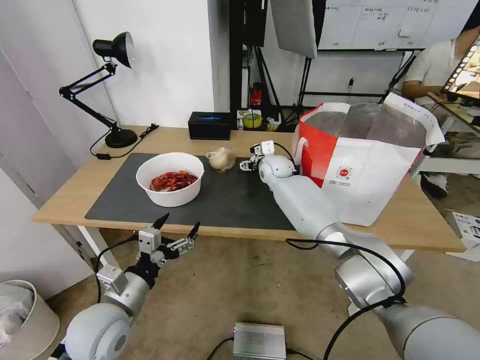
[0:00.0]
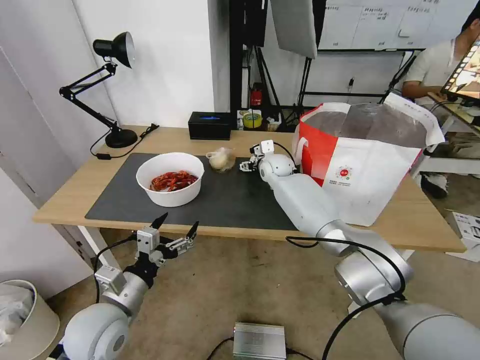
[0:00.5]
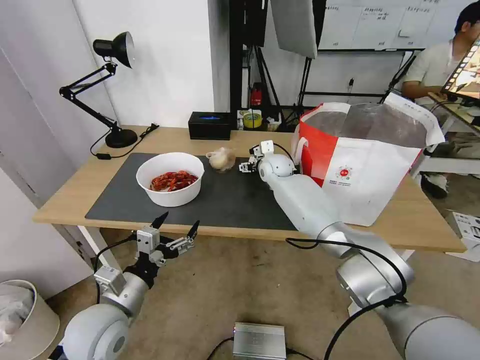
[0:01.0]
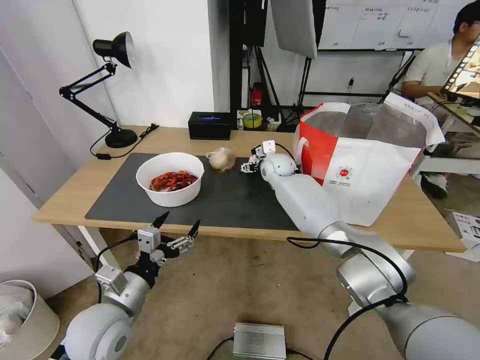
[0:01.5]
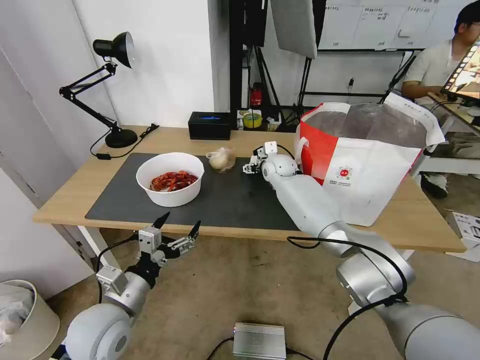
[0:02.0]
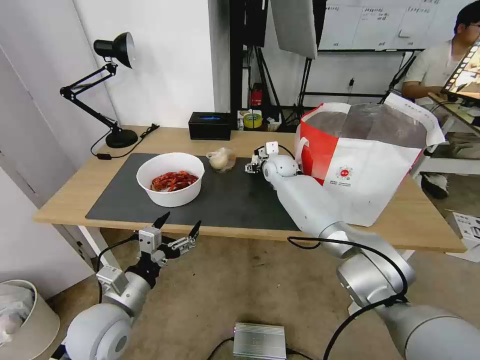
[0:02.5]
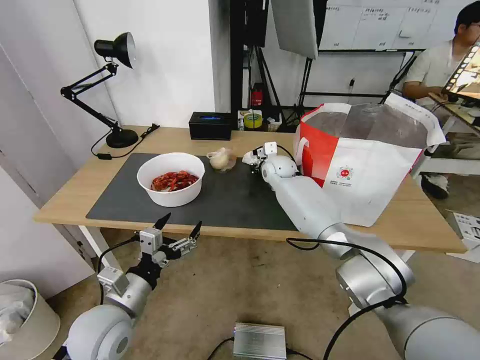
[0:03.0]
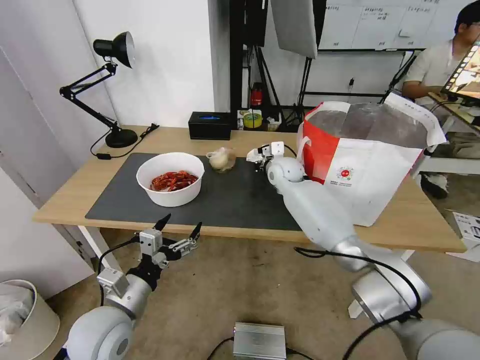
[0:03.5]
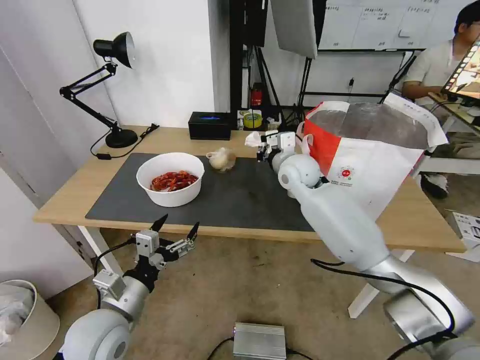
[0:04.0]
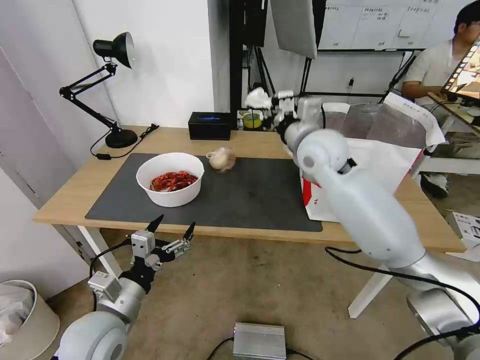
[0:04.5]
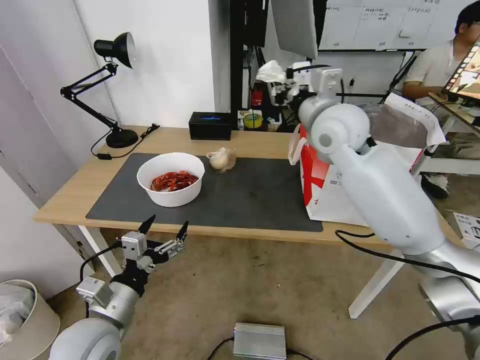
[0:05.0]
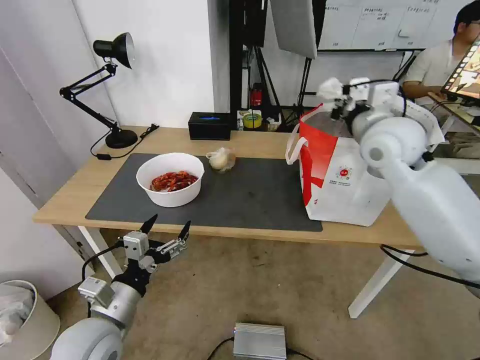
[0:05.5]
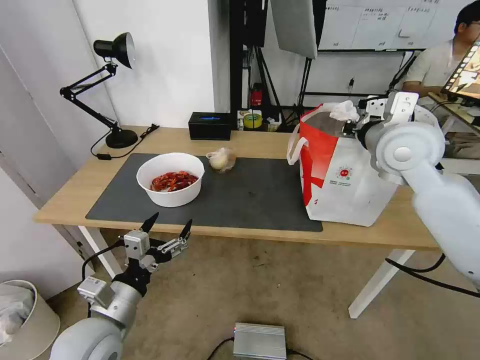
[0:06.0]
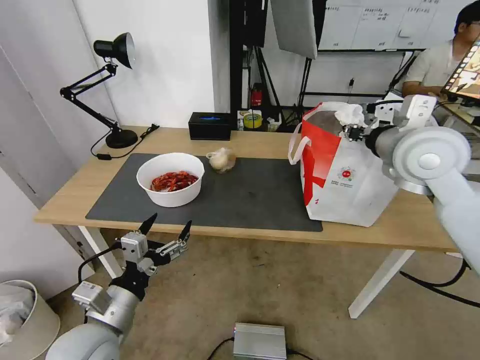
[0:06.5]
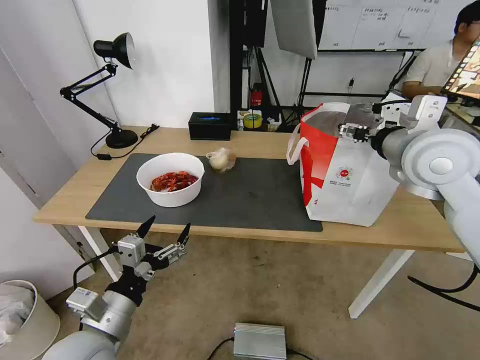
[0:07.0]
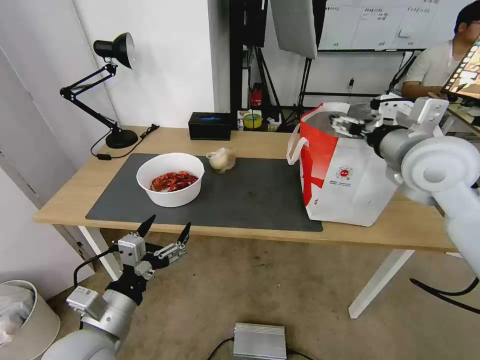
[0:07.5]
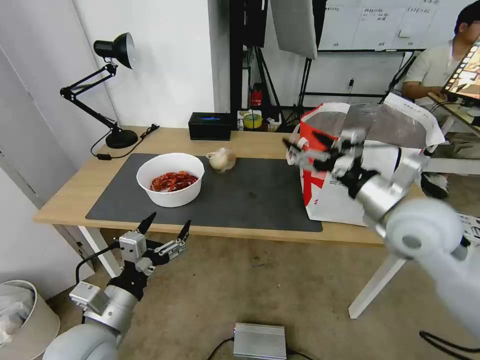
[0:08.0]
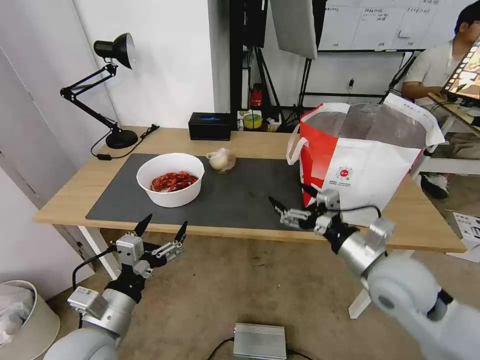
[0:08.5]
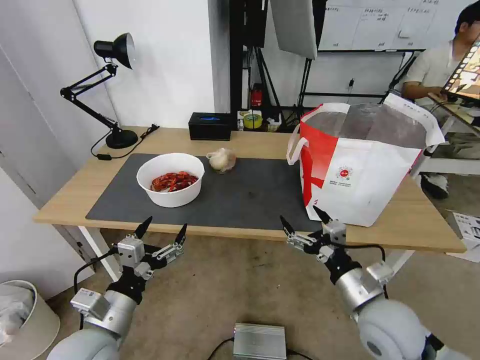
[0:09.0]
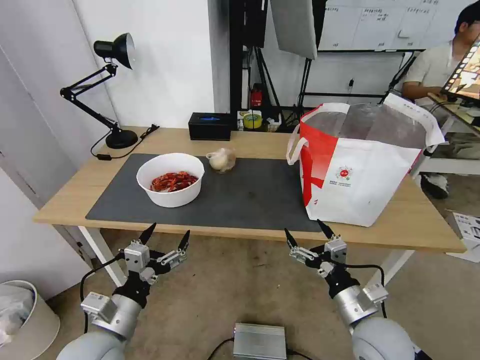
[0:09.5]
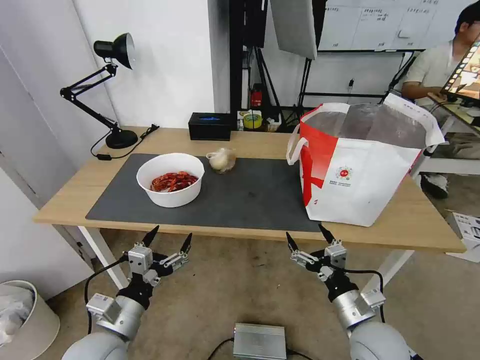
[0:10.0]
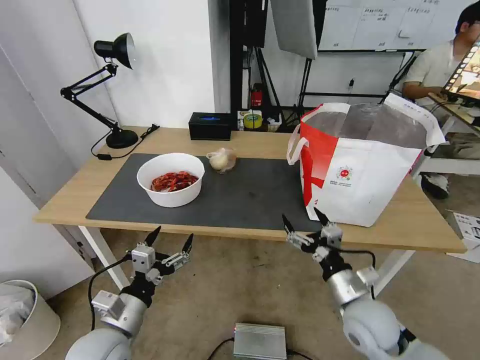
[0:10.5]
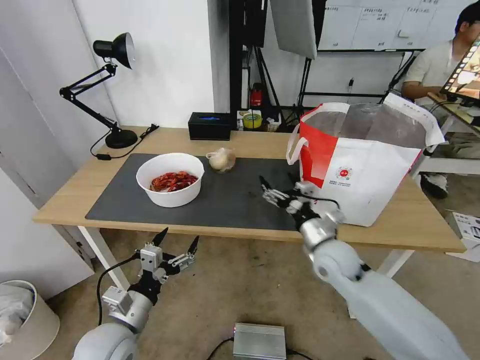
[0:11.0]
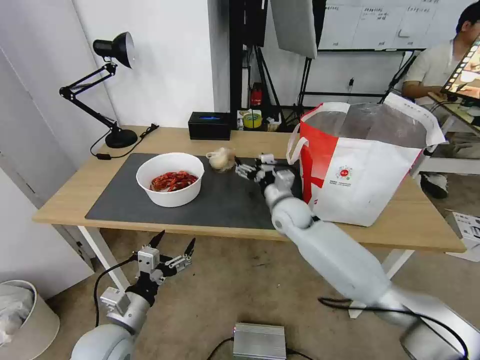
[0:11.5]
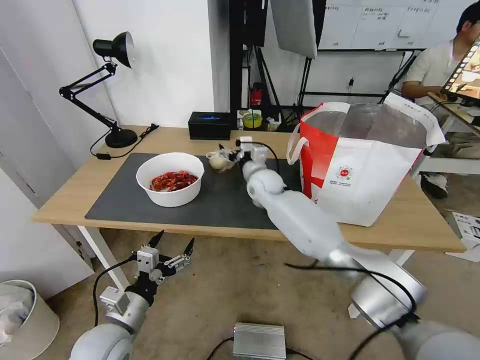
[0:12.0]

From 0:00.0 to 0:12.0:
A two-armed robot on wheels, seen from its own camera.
Task of the whole recording: Pick up the trash from the table and place it into the takeout bag.
From 0:00.0 to 0:02.0: Both grippers stay put.
From 0:02.0 to 0:04.0: The right gripper travels backward and upward by approximately 15 cm, and closes its fingers.
From 0:04.0 to 0:06.0: The right gripper shifts some 20 cm to the right, upward and backward.
From 0:06.0 to 0:08.0: The right gripper shifts approximately 15 cm backward and downward, and opens.
From 0:08.0 to 0:10.0: The right gripper is displaced downward and backward by some 25 cm.
From 0:10.0 to 0:12.0: The right gripper shifts some 40 cm forward and to the left.

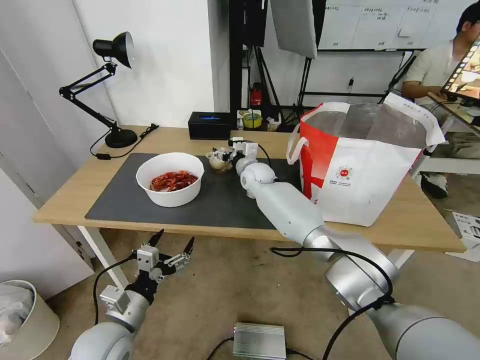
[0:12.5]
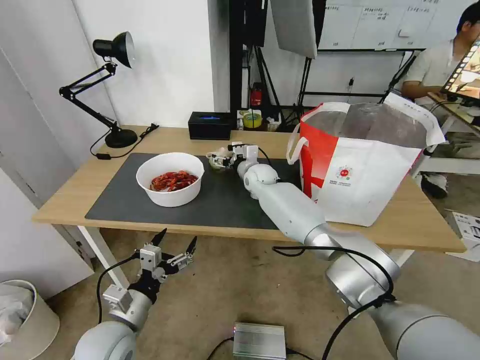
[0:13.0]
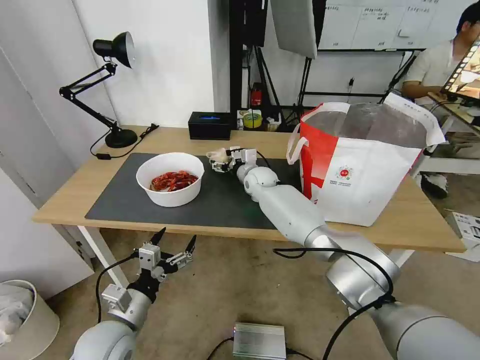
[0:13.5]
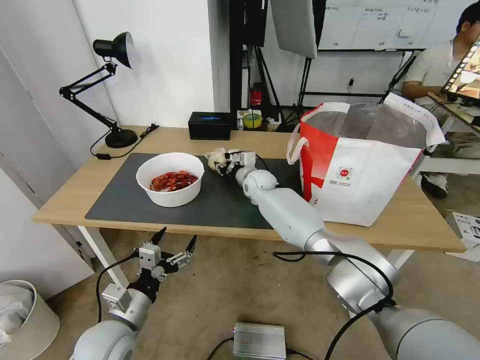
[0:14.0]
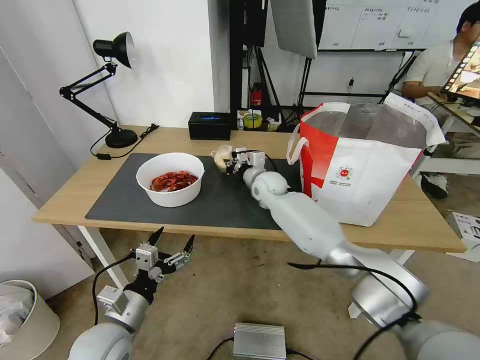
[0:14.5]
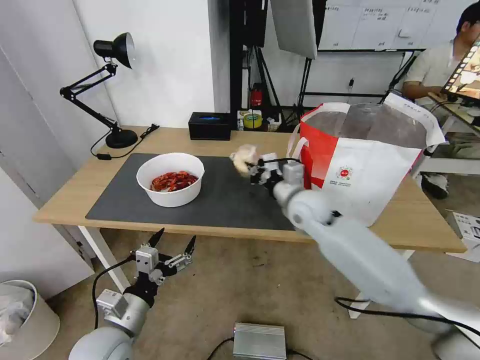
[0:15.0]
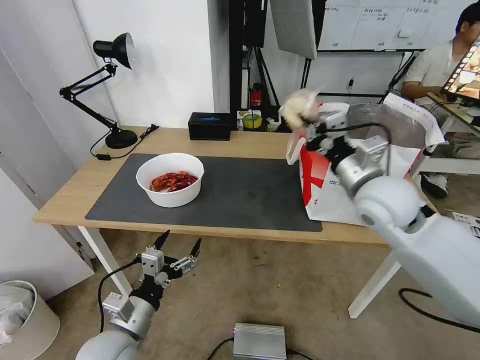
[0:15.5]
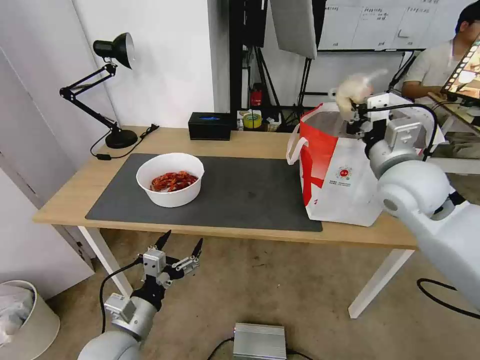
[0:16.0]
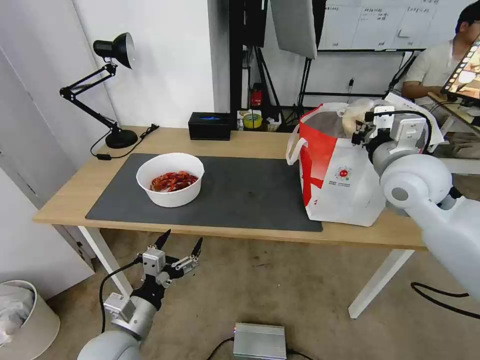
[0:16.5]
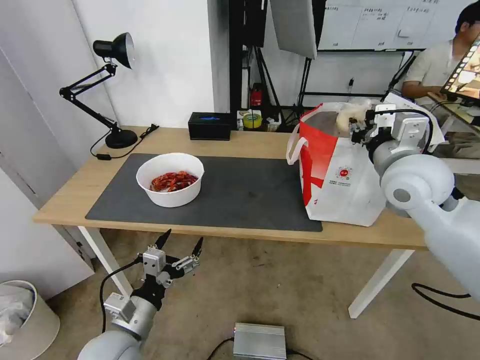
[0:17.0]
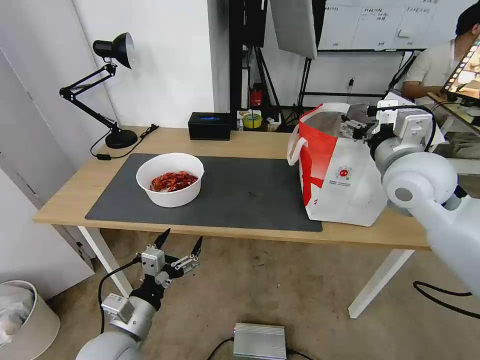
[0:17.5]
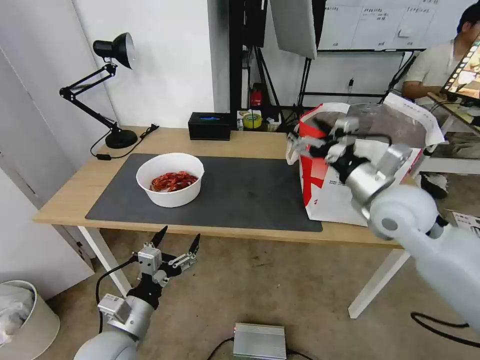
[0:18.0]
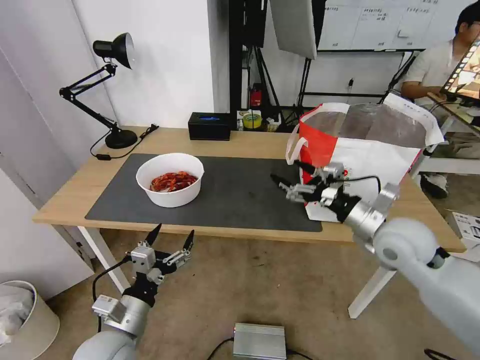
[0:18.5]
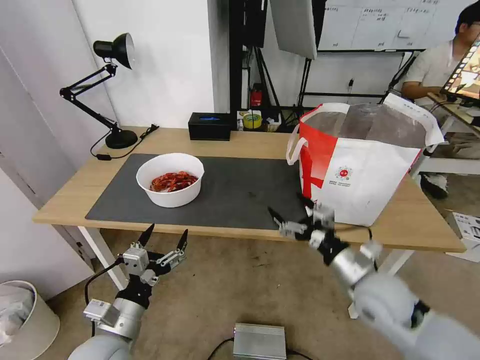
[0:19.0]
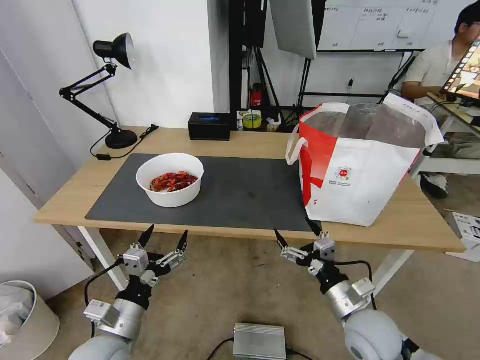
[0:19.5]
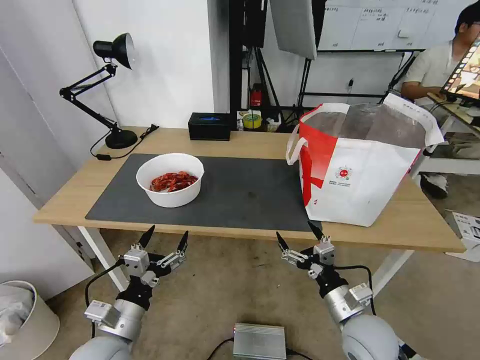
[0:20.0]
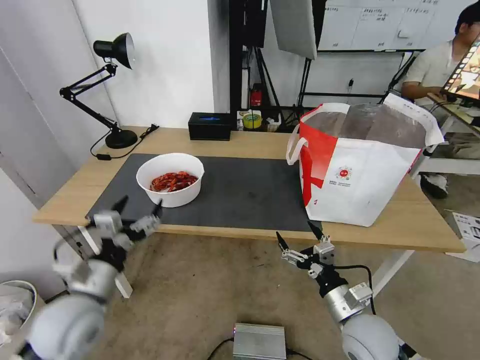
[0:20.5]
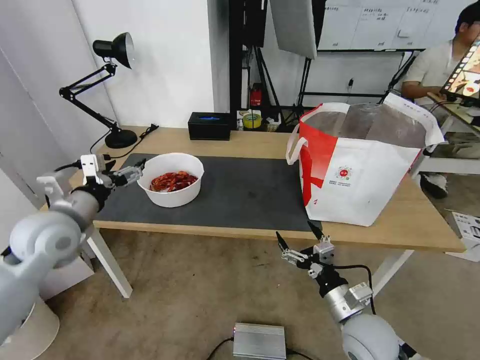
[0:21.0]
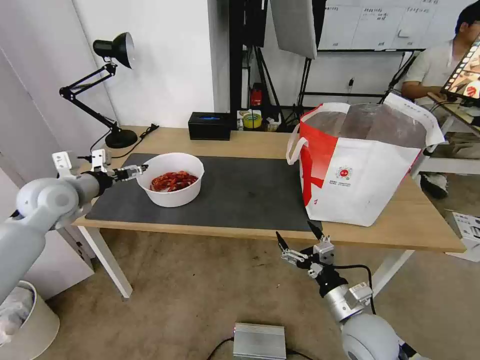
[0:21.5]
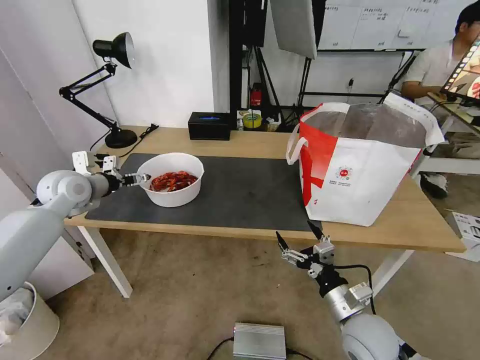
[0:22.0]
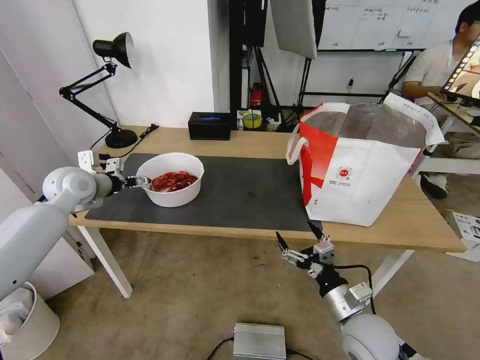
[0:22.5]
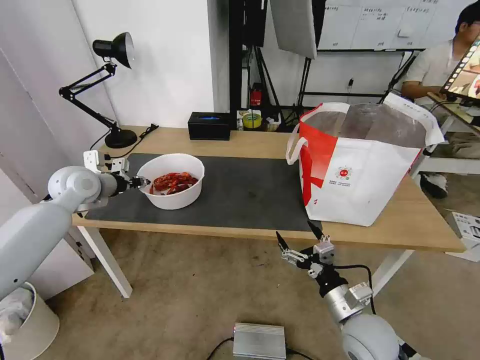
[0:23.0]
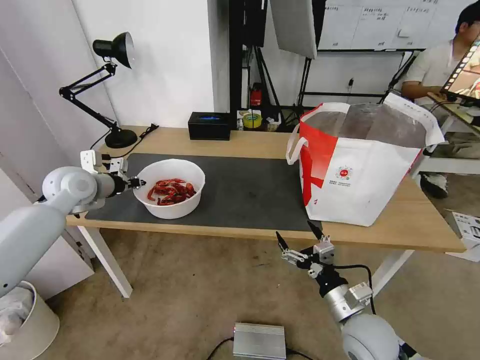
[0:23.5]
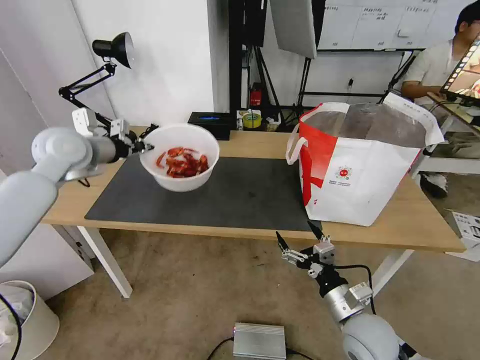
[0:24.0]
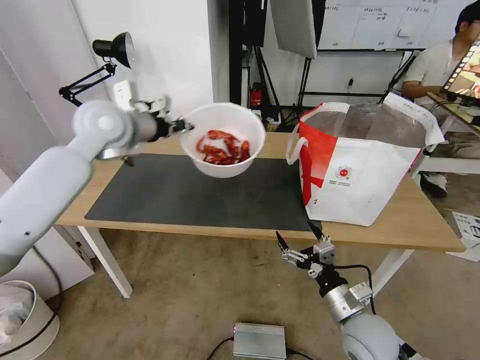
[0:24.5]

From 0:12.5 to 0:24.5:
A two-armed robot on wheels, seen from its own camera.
Task of the whole recording: Pick up the trash from the table and place it into the takeout bag.
From 0:12.5 to 0:14.5: The right gripper shifts by about 5 cm, and closes its fingers.
From 0:14.5 to 0:16.5: The right gripper moves to the right, upward and backward, approximately 35 cm.
From 0:16.5 to 0:18.5: The right gripper travels downward by roughly 10 cm, and opens its fingers.
From 0:18.5 to 0:20.5: The right gripper goes about 20 cm downward and backward. Meanwhile the left gripper is displaced upward by about 5 cm.
From 0:20.5 to 0:22.5: The left gripper travels forward by approximately 25 cm.
From 0:22.5 to 0:24.5: The left gripper travels upward and to the right by roughly 20 cm, and closes.

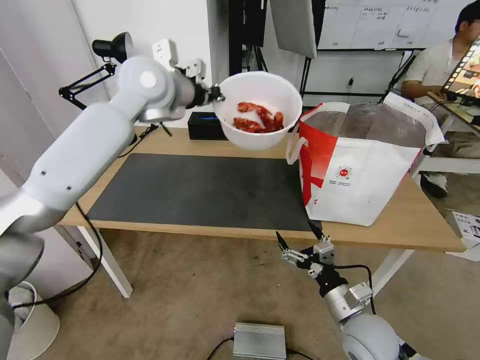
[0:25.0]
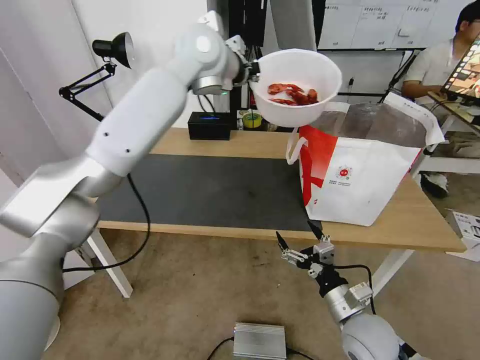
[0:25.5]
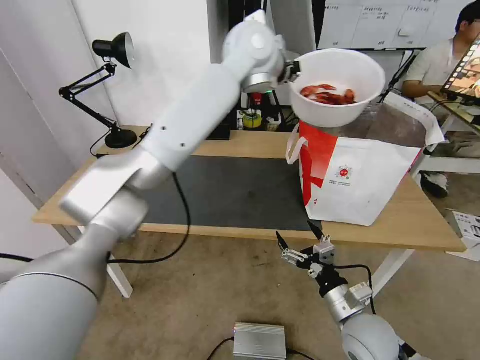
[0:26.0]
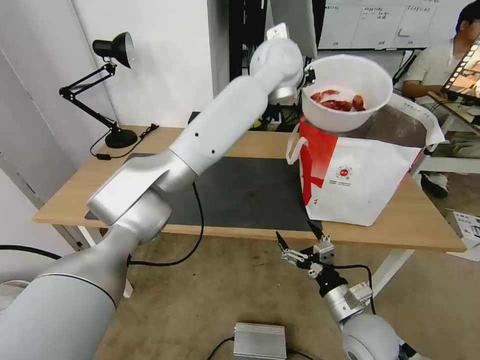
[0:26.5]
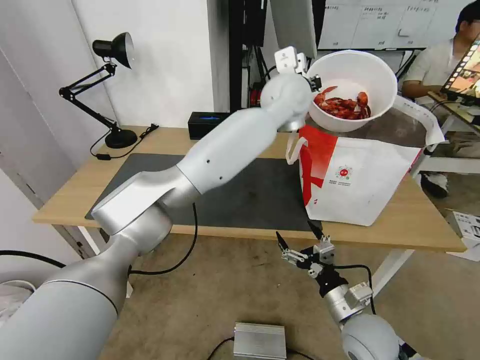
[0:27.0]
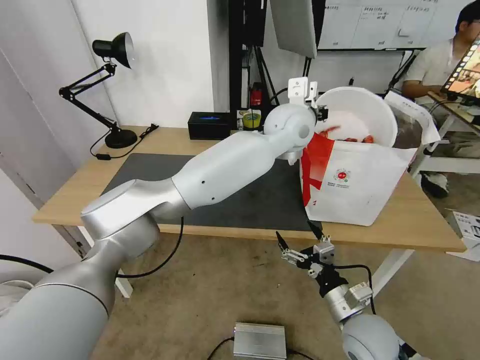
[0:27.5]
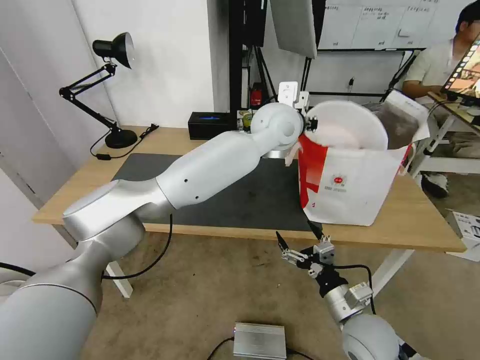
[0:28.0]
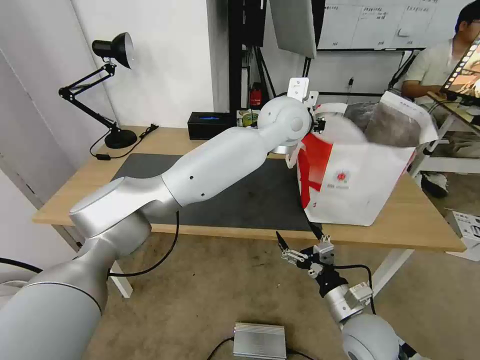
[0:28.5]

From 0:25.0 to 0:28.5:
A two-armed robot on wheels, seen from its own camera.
Task of the whole recording: Pick up the trash from the table and place it into the takeout bag.
From 0:25.0 to 0:27.0: The left gripper moves to the right, roughly 25 cm.
